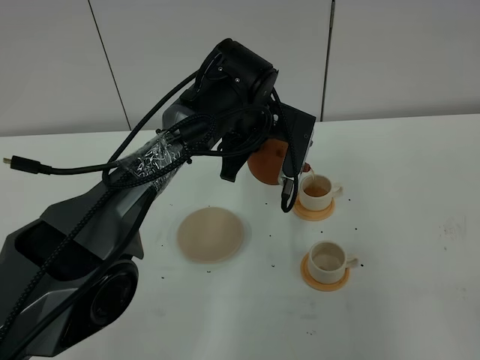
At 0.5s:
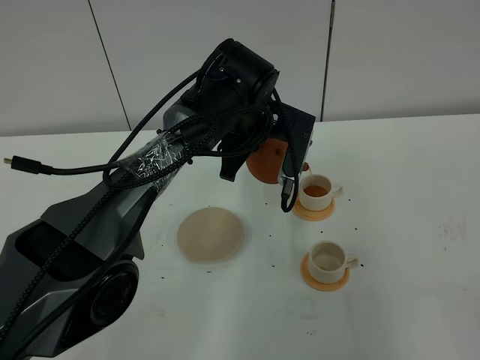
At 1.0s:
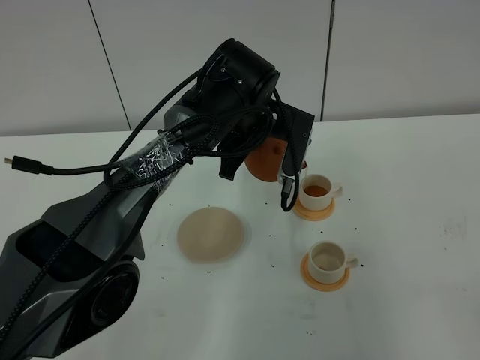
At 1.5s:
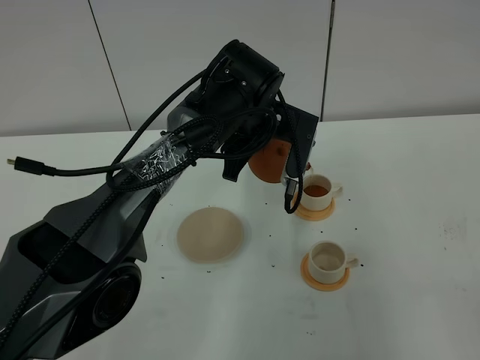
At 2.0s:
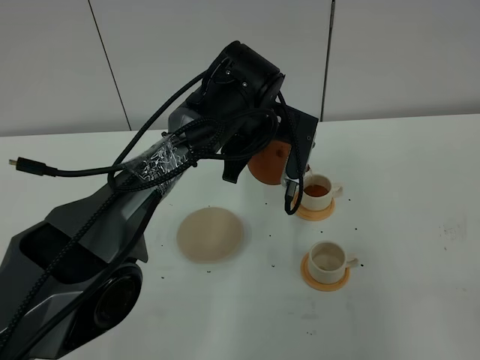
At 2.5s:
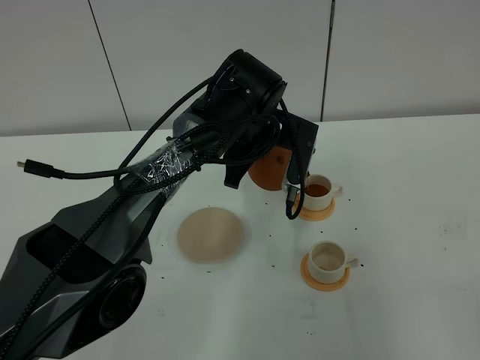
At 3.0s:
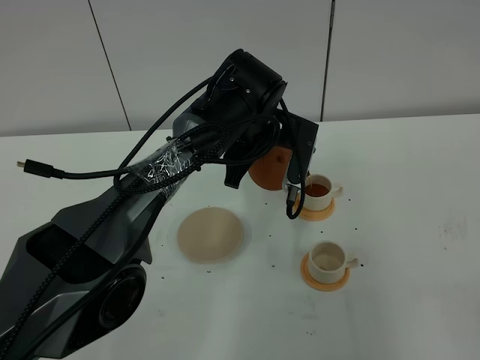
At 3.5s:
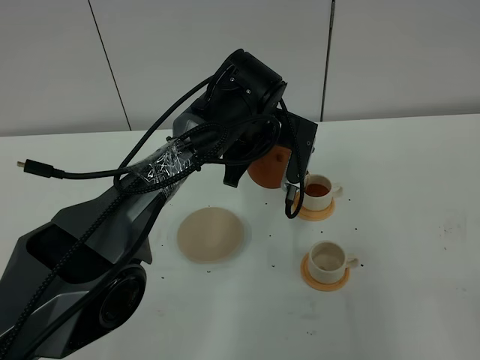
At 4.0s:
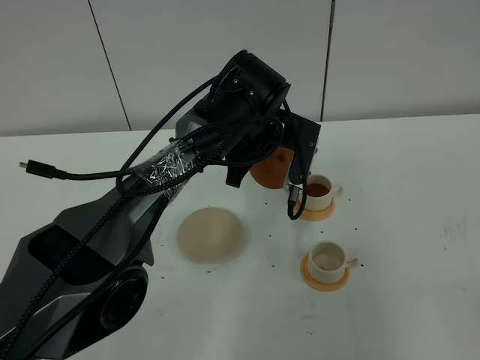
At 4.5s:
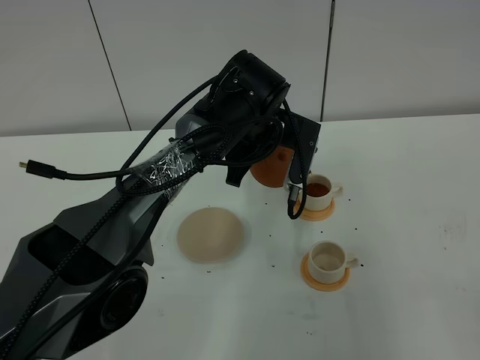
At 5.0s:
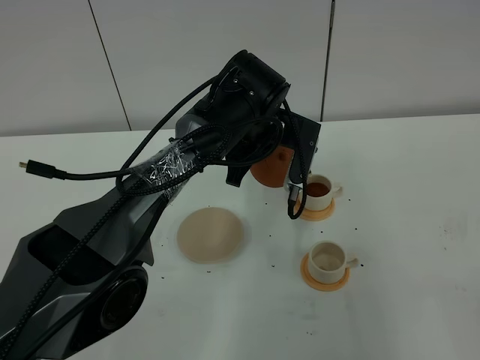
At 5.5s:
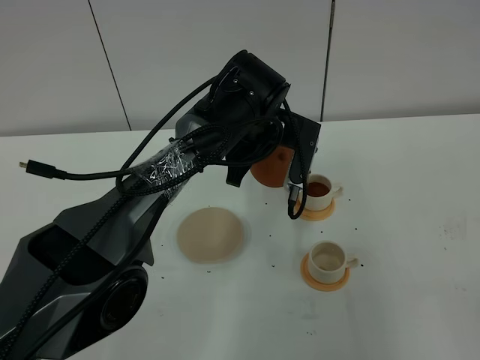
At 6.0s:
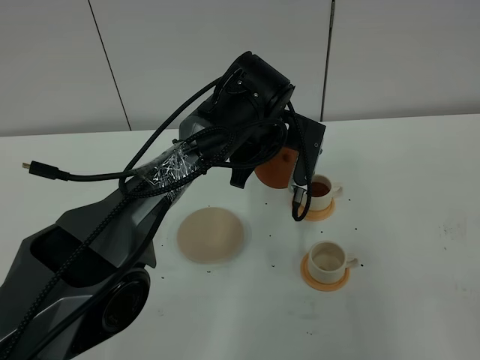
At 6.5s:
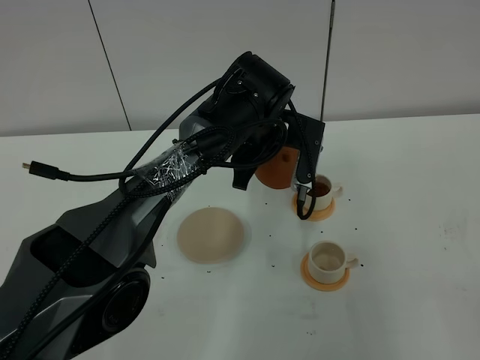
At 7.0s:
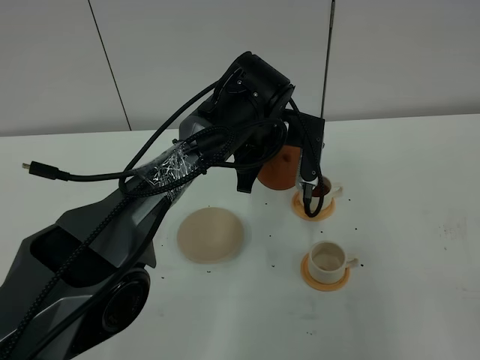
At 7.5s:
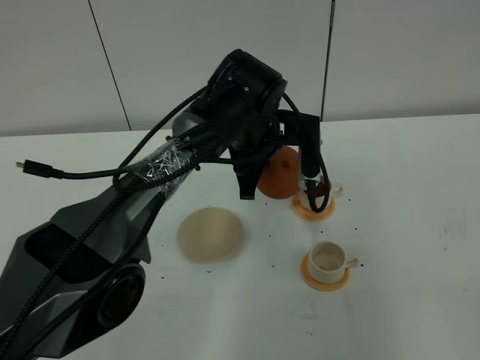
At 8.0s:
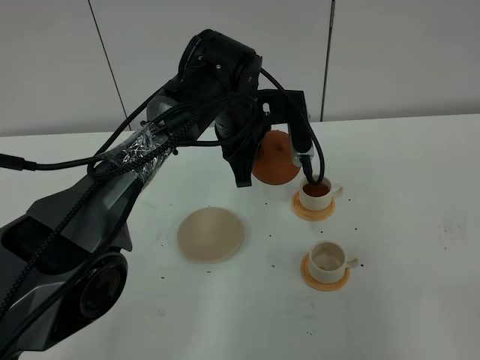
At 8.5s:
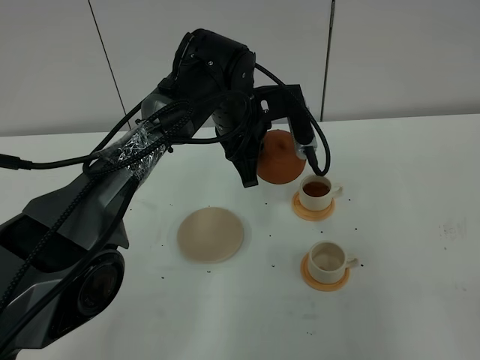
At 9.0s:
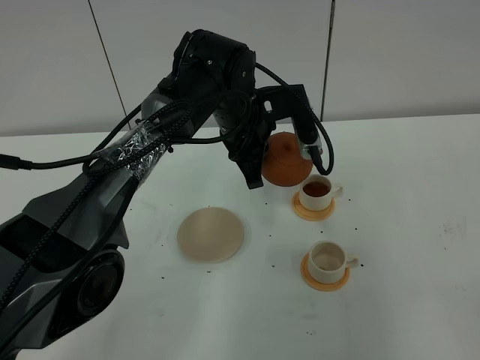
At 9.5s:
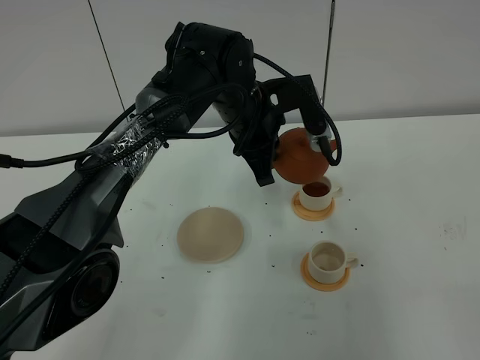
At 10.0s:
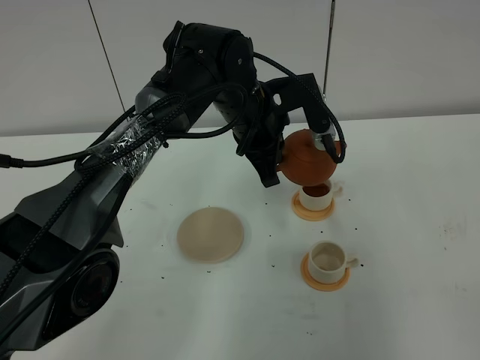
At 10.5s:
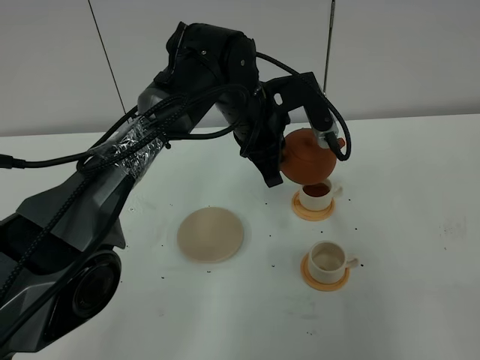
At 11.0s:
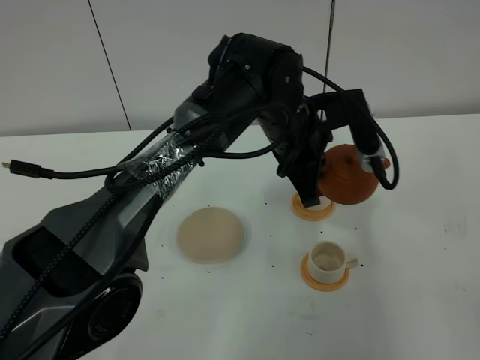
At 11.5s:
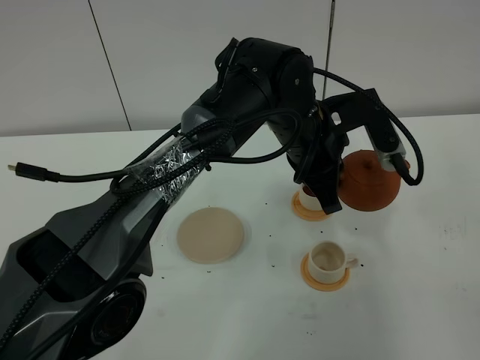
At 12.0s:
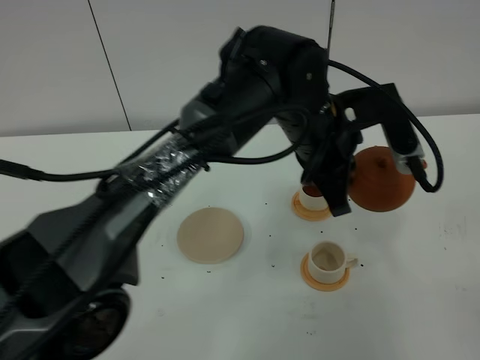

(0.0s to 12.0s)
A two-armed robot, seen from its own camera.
Task of the whole recording: grasp the brown teapot and pour the tea into the two white teacups one by one, put the brown teapot back in its original place.
0.0s - 4.0s: Both grippers stay about where they are.
4.0s - 6.0s: Both grippers stay put.
8.0s - 10.0s: The grippers make only small movements.
10.0s - 12.0s: The left gripper travels backward and to the right by about 10 cm.

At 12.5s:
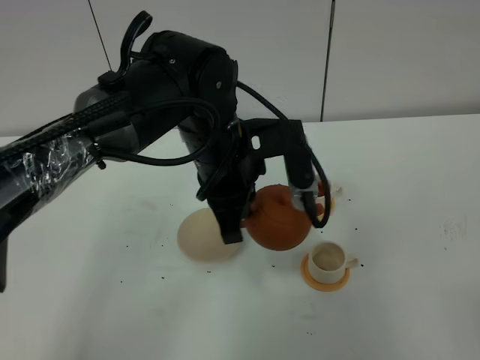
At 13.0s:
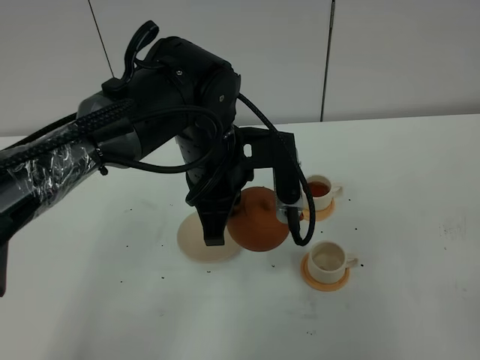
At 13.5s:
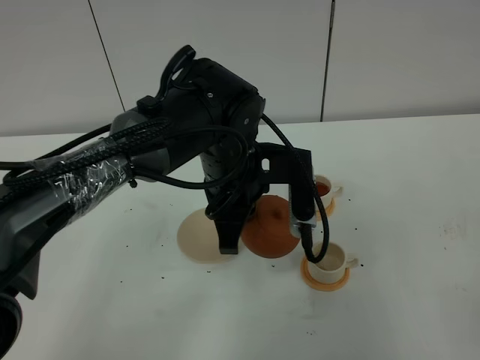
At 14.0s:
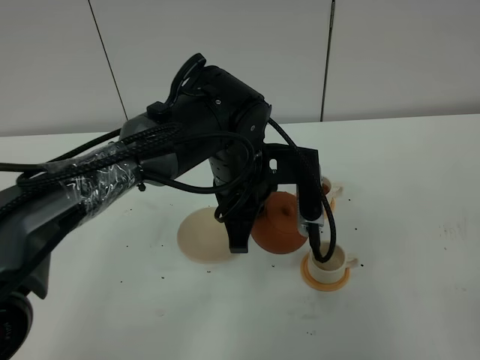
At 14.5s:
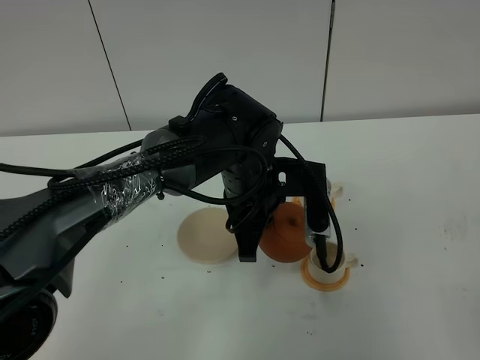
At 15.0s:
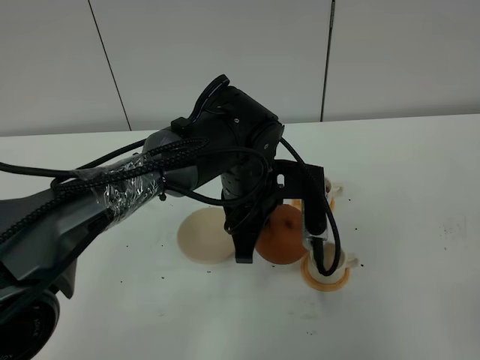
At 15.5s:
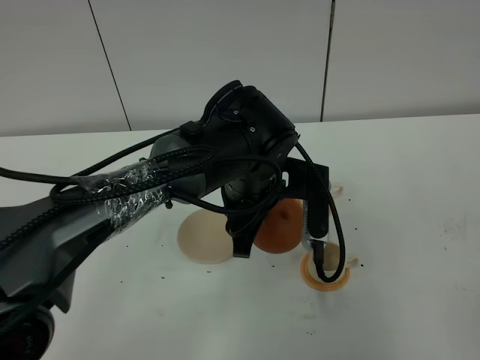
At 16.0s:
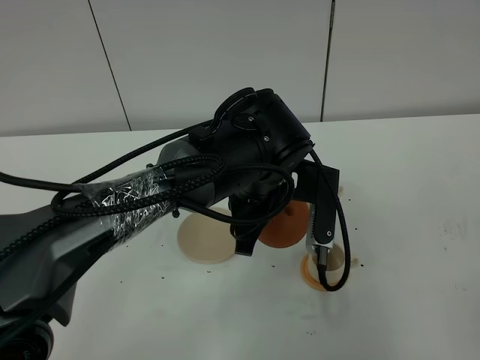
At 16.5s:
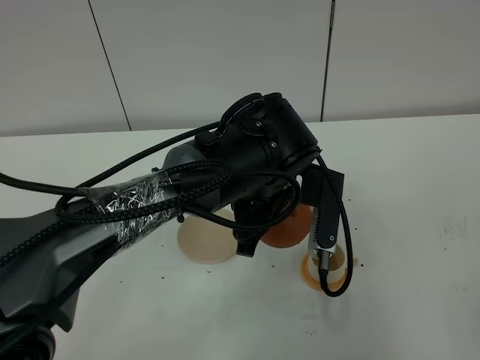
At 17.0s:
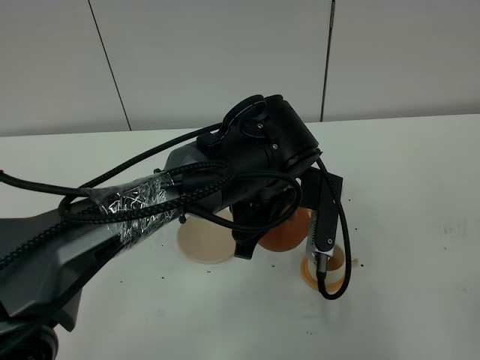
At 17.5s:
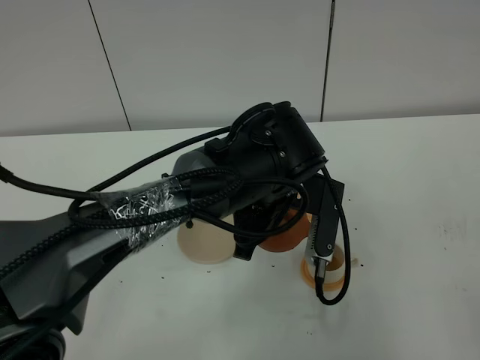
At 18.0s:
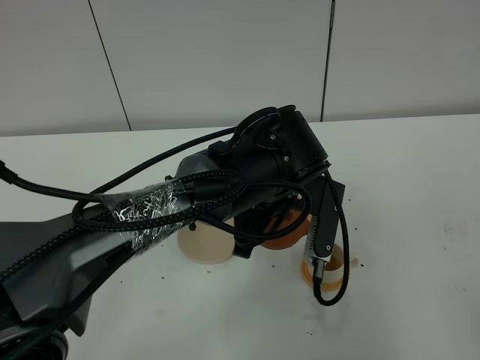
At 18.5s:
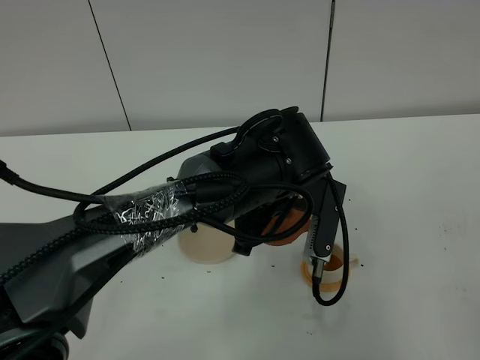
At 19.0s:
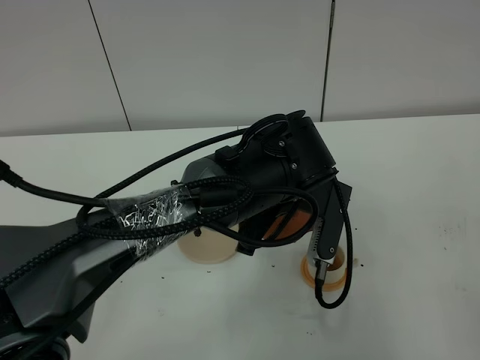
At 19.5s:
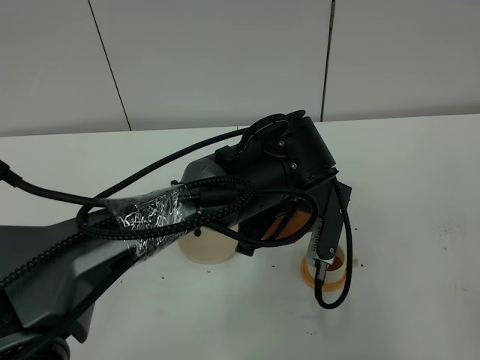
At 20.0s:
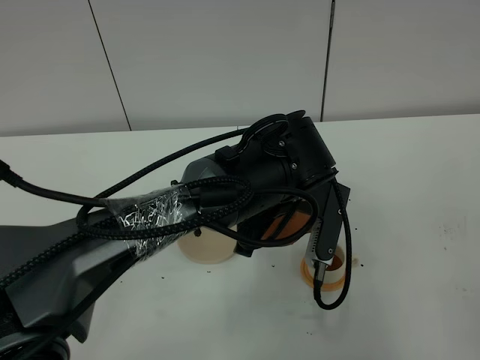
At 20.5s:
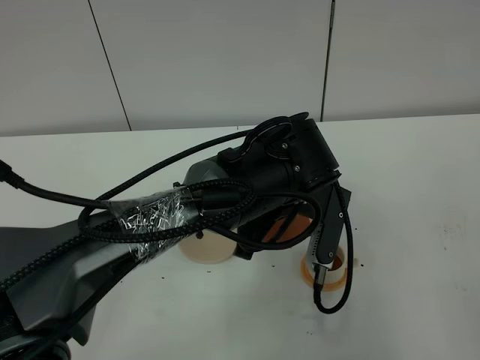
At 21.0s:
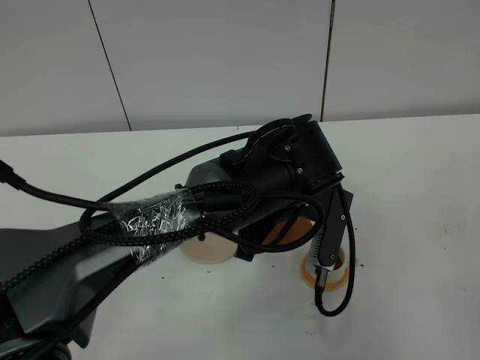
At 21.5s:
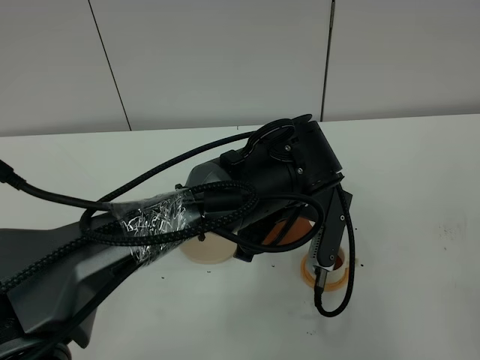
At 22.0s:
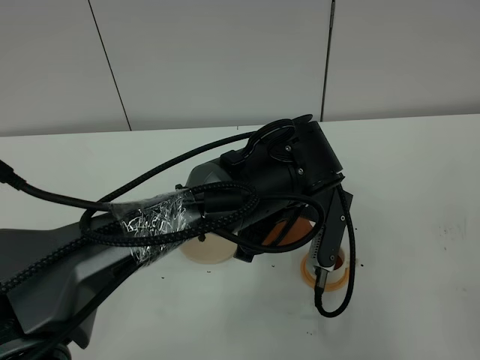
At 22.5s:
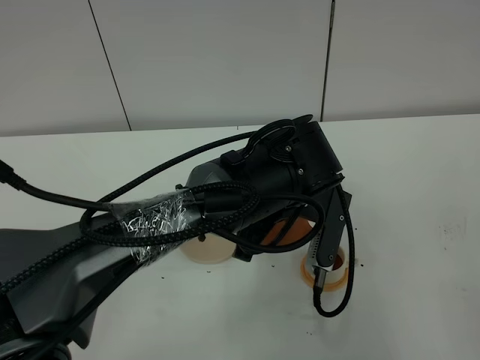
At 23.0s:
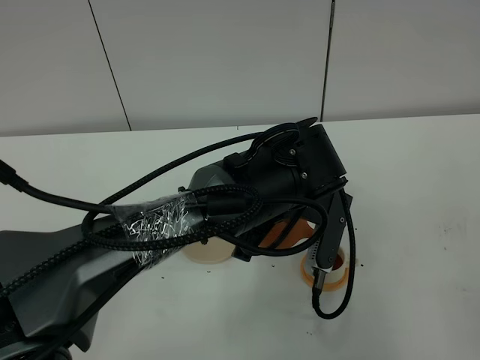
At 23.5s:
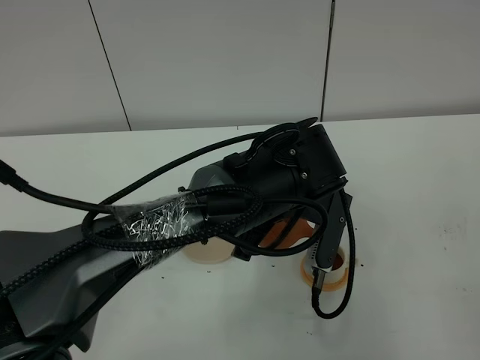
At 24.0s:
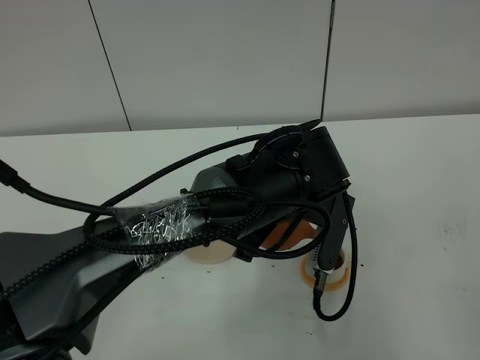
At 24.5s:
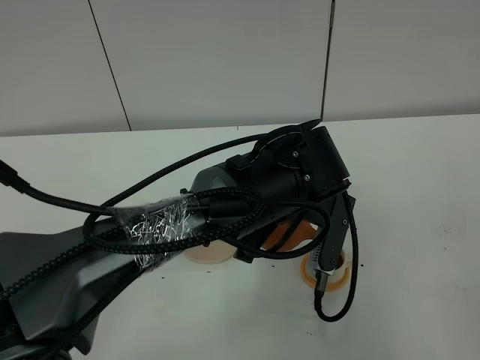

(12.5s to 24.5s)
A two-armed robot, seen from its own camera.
Task of the whole recording: grasp the brown teapot and pour the tea into the two white teacups one by one, put the brown teapot back in its original place.
12.5s - 14.5s: The left gripper travels downward by about 5 cm.
14.5s - 16.5s: There are only small adjustments of the grippers.
16.5s - 18.5s: The grippers move only a little.
18.5s - 22.5s: Neither gripper changes place.
22.5s - 24.5s: Both grippers stay about where they are.

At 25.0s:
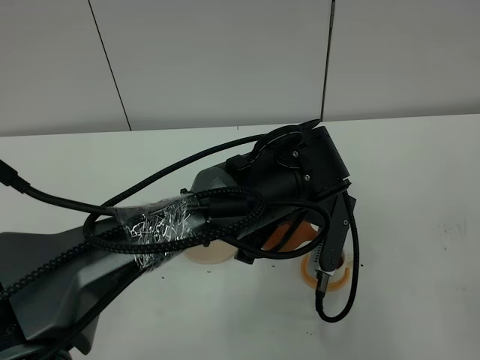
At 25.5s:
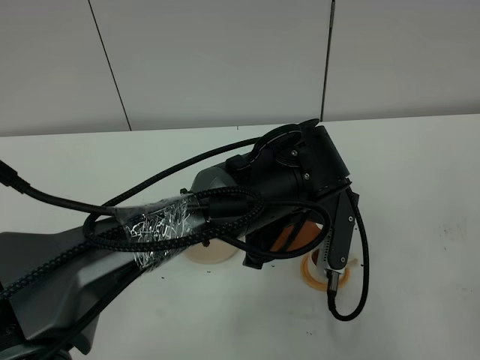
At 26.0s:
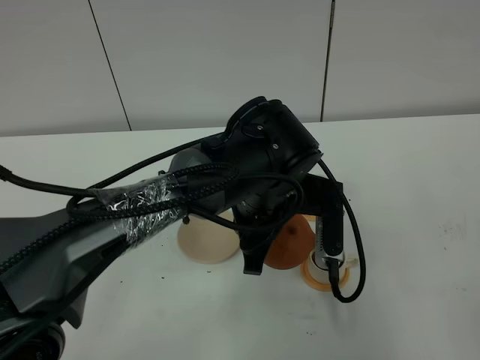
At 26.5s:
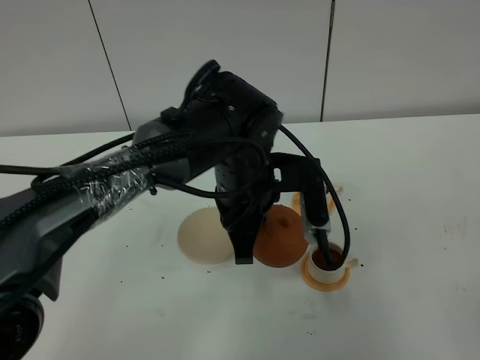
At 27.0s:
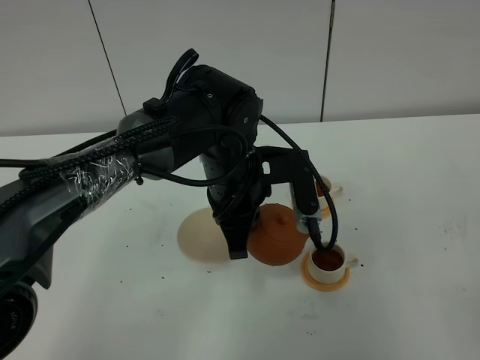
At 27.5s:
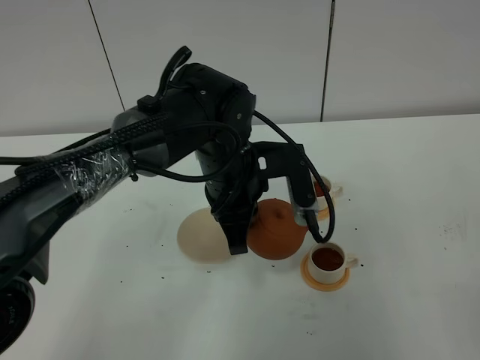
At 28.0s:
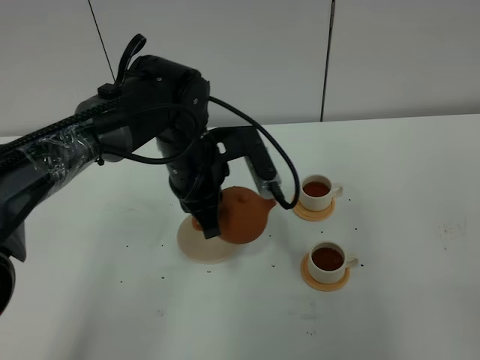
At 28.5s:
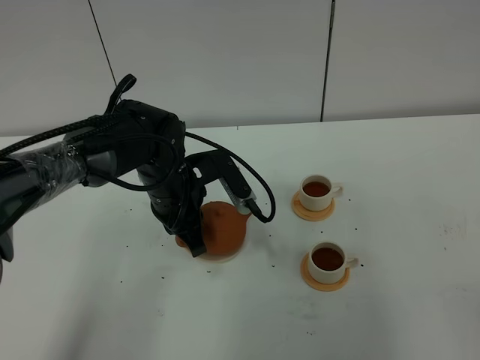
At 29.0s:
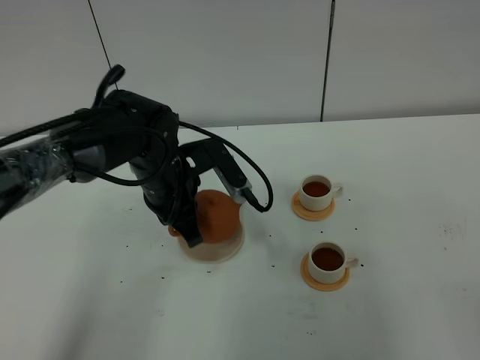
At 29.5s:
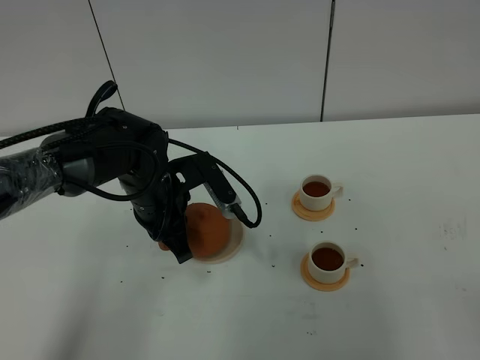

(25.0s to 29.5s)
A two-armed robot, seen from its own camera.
Task of the whole recording: grasp the brown teapot and pour the tea into the two white teacups one by one, put the brown teapot back in its original place.
25.0s - 27.0s: The left gripper goes roughly 5 cm to the left.
27.0s - 29.5s: The left gripper heads to the left and downward, covering approximately 10 cm.
